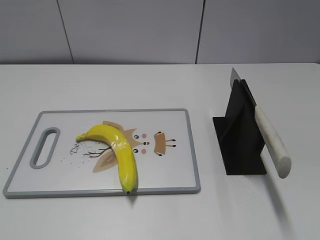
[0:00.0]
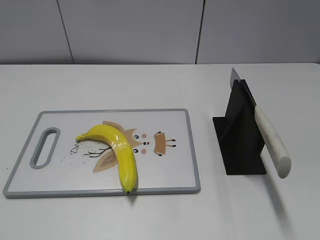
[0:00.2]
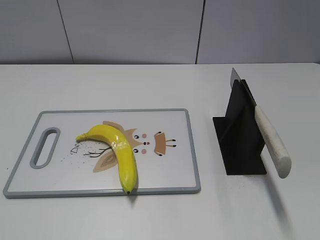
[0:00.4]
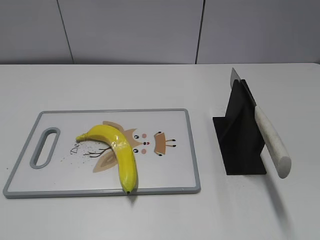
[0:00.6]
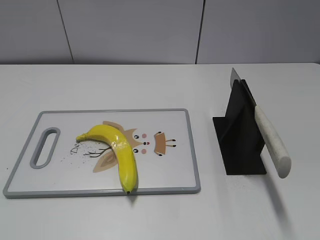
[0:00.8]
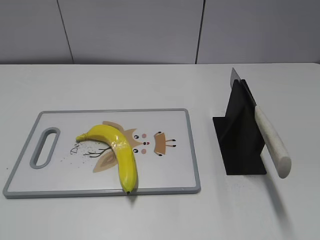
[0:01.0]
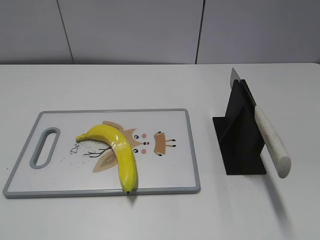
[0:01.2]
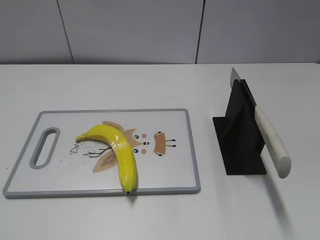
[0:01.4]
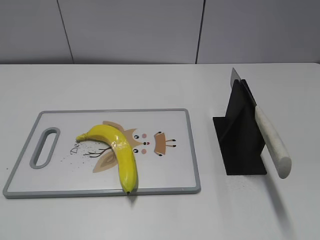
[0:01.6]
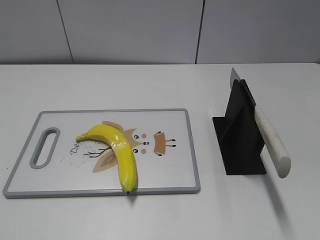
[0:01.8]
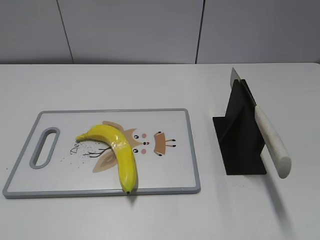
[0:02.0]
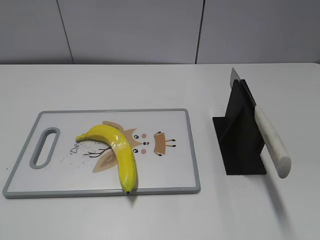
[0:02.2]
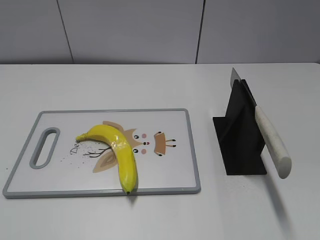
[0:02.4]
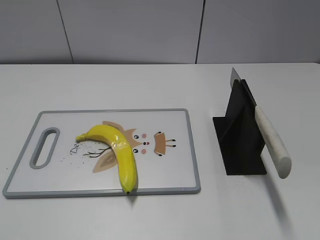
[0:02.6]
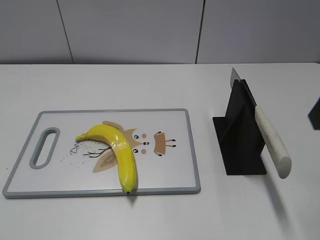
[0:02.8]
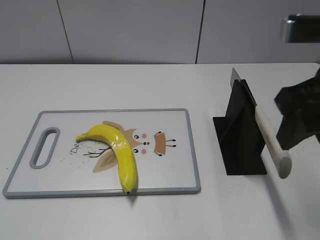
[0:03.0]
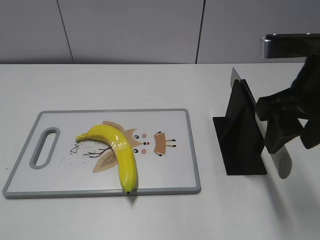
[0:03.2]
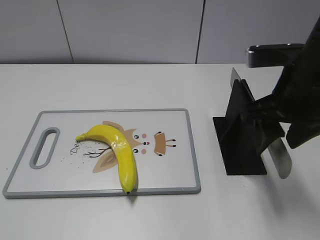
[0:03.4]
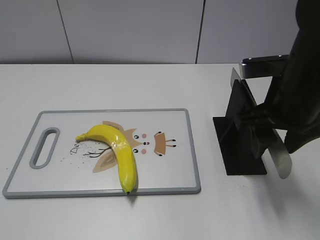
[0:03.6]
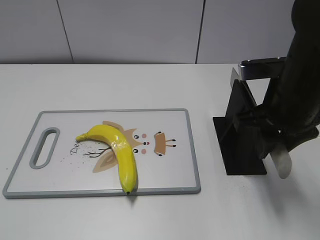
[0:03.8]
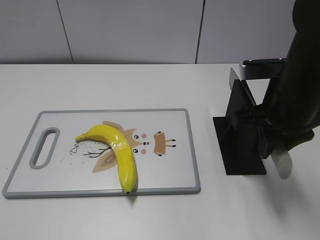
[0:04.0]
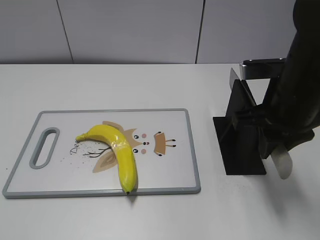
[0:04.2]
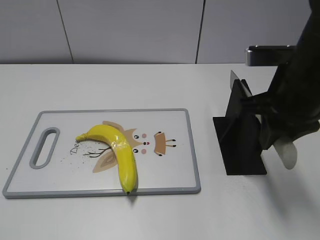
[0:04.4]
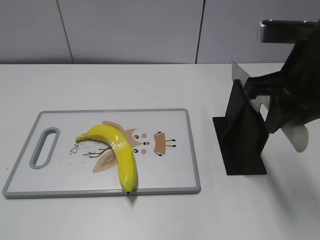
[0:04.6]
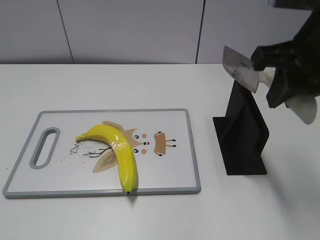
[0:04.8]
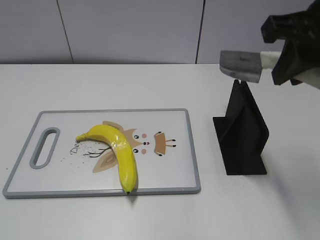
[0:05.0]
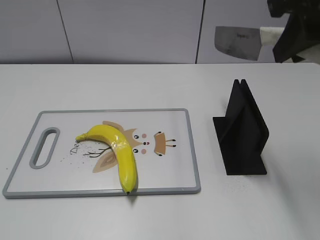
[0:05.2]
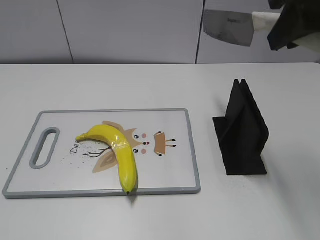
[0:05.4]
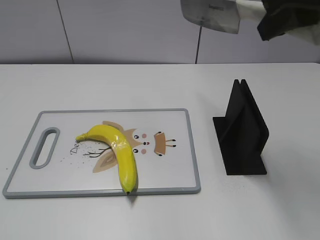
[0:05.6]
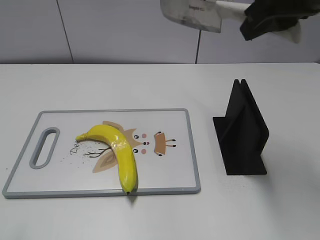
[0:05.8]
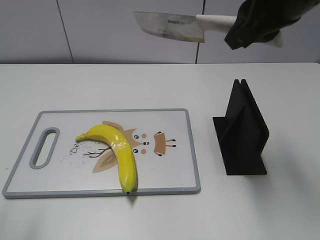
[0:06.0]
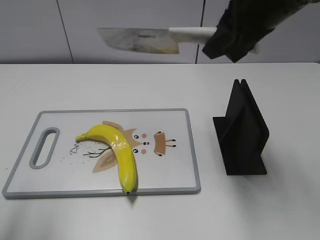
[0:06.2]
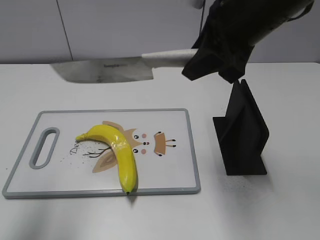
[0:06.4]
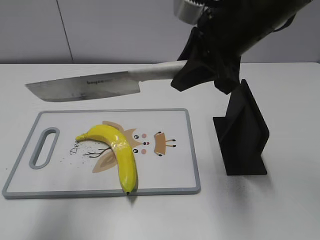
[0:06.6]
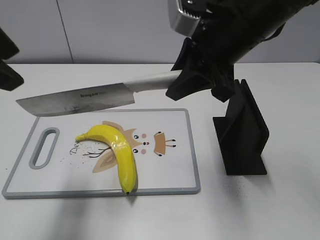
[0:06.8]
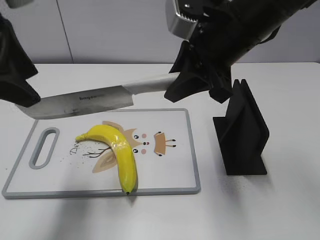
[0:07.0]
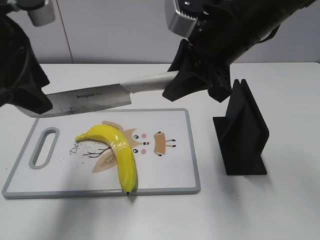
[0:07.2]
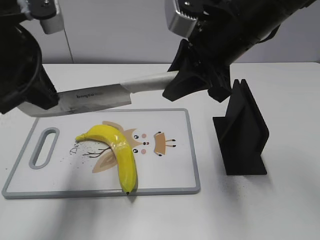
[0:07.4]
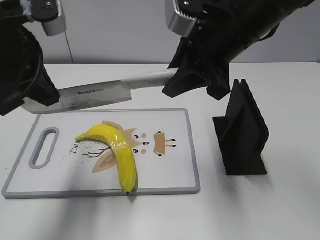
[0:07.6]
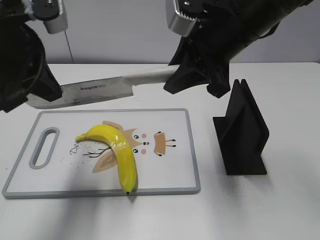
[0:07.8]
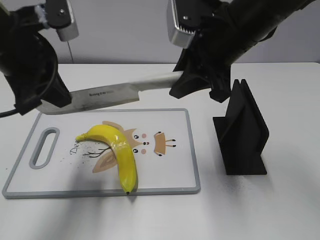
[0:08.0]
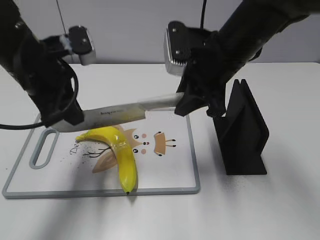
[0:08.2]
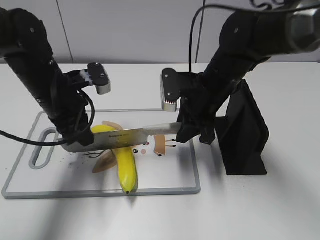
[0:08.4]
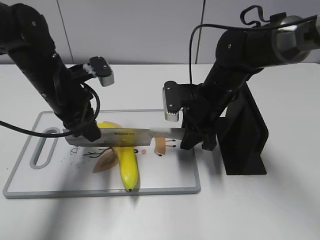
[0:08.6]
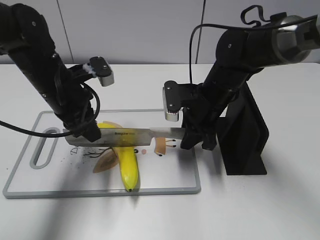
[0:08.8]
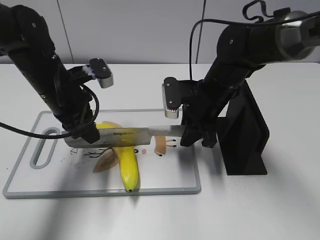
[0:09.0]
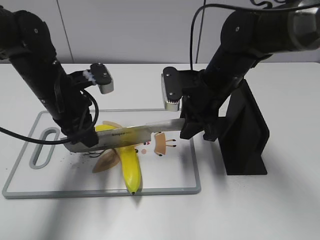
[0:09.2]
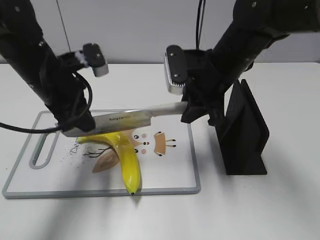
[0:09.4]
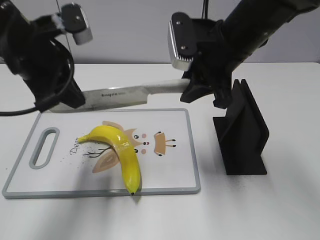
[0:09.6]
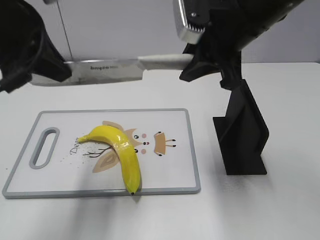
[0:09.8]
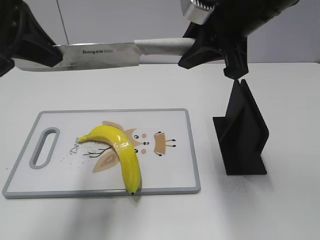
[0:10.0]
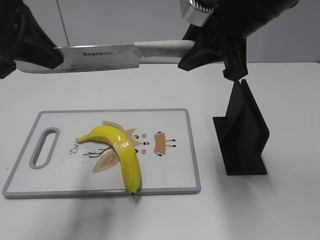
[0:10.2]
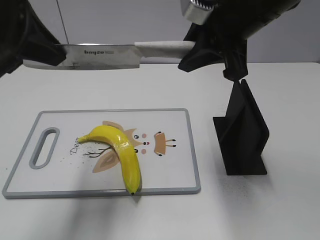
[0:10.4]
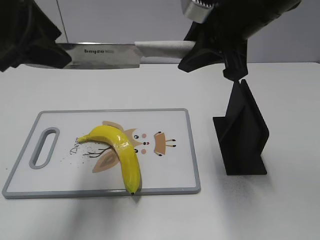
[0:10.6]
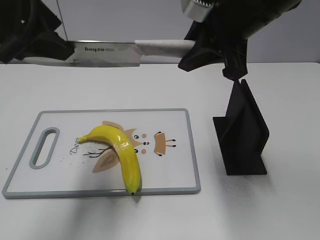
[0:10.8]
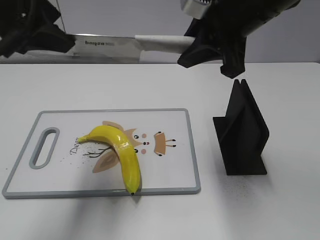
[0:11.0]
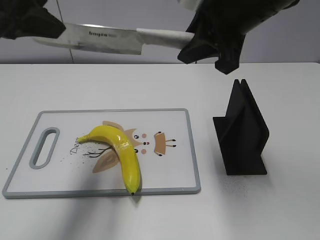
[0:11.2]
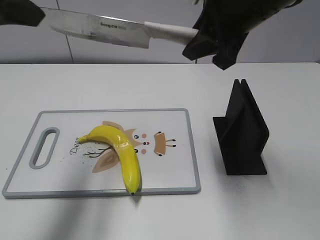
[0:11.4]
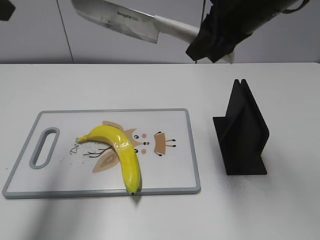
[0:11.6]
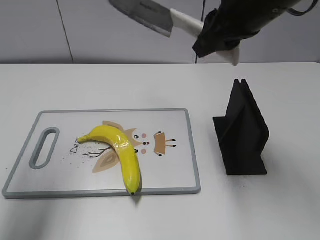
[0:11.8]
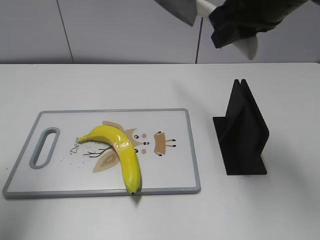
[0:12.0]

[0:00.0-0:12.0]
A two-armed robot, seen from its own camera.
Task of the whole recording: cut plastic banana.
Step, 0:00.0 to 0:04.8: Grab the knife handle with your right hand.
Step, 0:05.2 to 0:09.2: Lift the knife with your right hand.
Step, 0:09.4 to 0:11.0: Cut the banana with your right hand.
0:01.6 to 0:03.0: The right gripper is displaced forward and to the left by approximately 25 cm.
0:03.0 to 0:04.4: The right gripper is displaced downward by approximately 5 cm, and closes.
0:04.4 to 0:06.0: The left gripper heads forward and upward, covering some 10 cm, while the right gripper is displaced upward by roughly 10 cm.
0:06.0 to 0:07.6: The left gripper moves forward and to the right, approximately 20 cm, and closes its fingers. The right gripper shifts about 10 cm downward and to the left.
0:07.6 to 0:09.0: The left gripper goes some 15 cm downward and forward, while the right gripper travels downward by about 15 cm.
0:09.0 to 0:10.4: The left gripper moves upward and backward, approximately 20 cm, while the right gripper is displaced upward by approximately 20 cm.
0:10.4 to 0:12.0: The left gripper goes approximately 10 cm to the left, and opens.

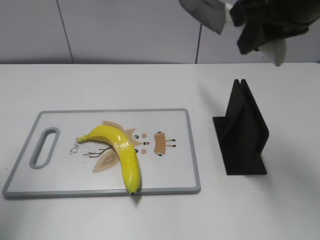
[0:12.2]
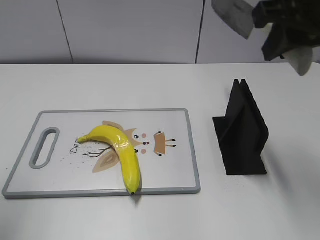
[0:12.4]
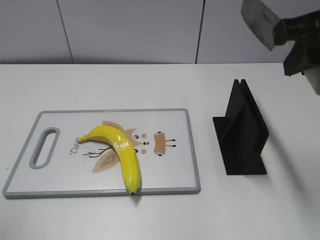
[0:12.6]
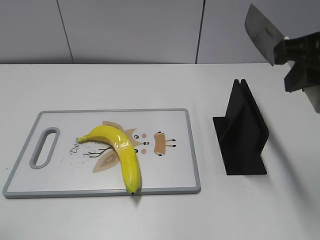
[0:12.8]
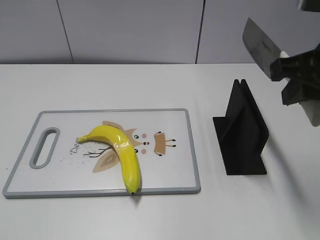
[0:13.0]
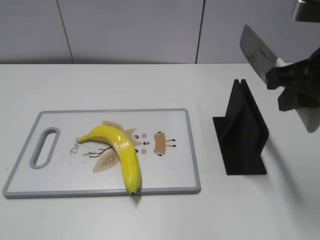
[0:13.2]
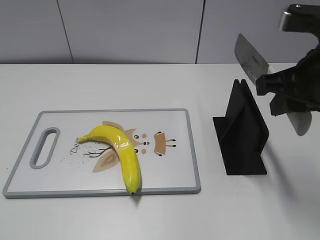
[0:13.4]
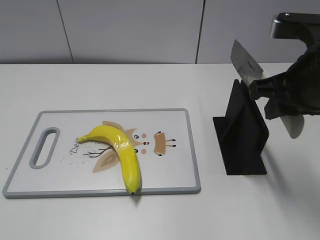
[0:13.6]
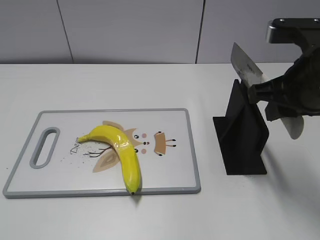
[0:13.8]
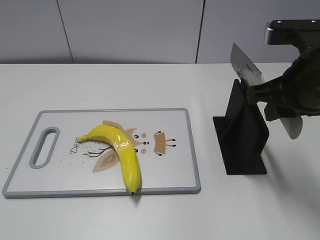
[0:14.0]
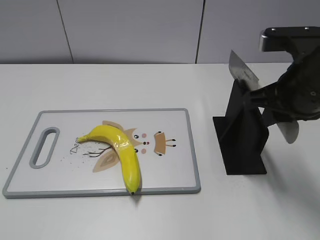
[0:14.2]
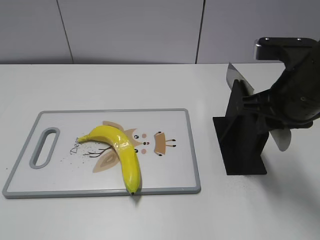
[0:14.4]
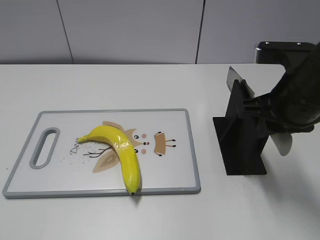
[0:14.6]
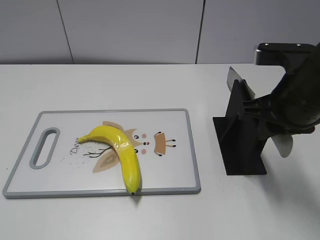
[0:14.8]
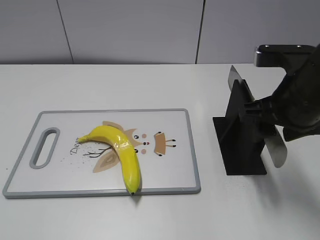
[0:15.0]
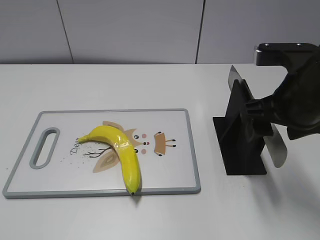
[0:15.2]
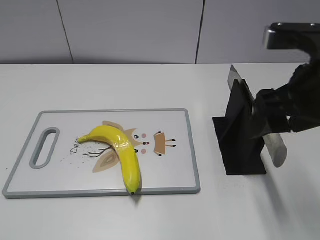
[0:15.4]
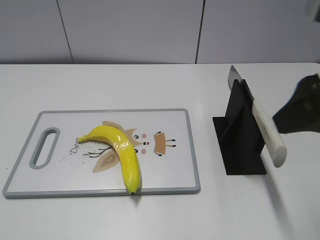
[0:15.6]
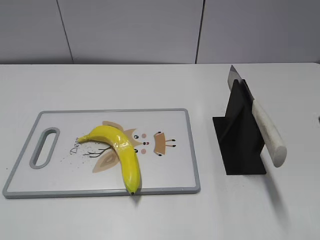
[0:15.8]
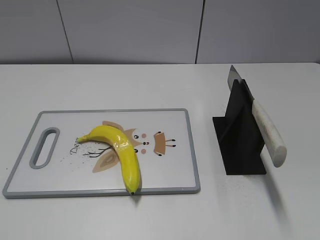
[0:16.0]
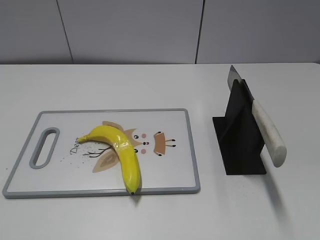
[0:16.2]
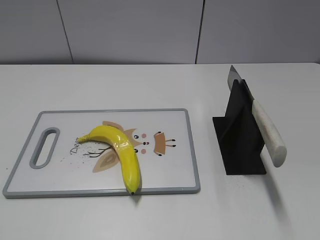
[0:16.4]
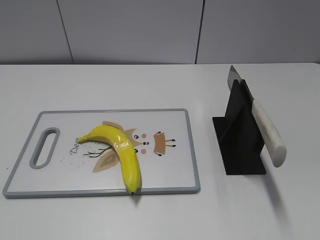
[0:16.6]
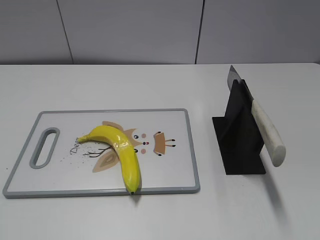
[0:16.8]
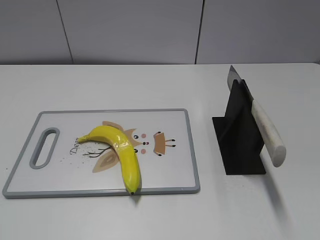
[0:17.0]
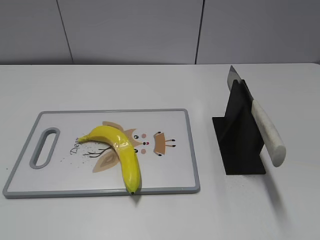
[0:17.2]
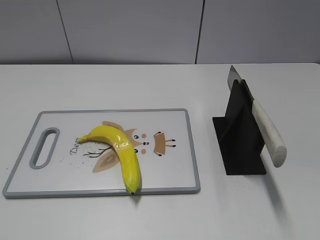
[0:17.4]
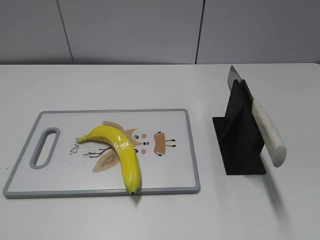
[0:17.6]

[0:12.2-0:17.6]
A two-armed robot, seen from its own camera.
Task of the whole recording: cut plastic banana.
Step, 0:13.2 to 0:17.6: Place the knife on the storage rack with your right hand.
0:12.2 to 0:13.6: The right gripper moves downward, about 10 cm, while the left gripper heads backward and downward, covering roughly 25 cm.
0:13.6 to 0:15.0: The right gripper opens.
0:15.0 to 0:16.2: The right gripper heads backward and to the right, covering some 20 cm.
